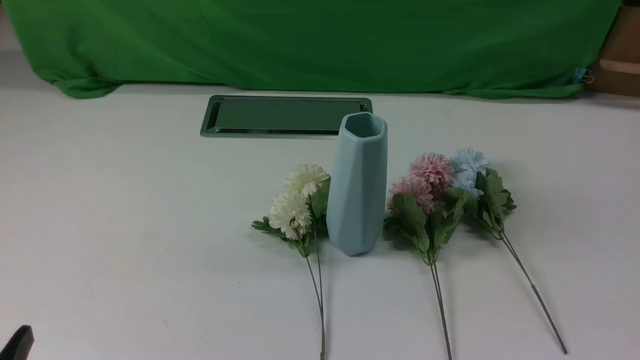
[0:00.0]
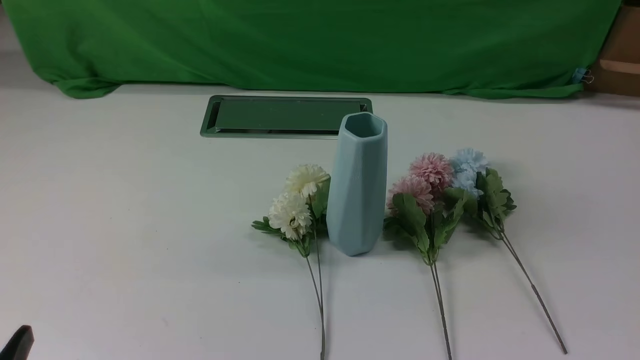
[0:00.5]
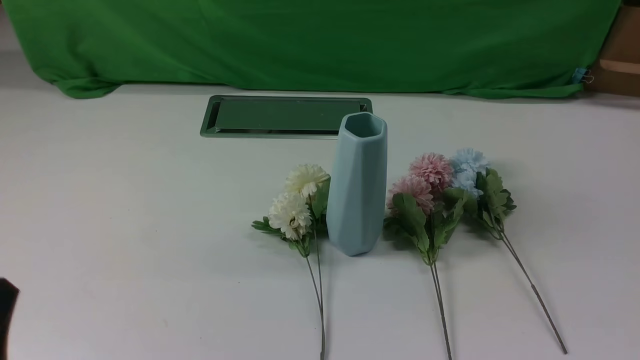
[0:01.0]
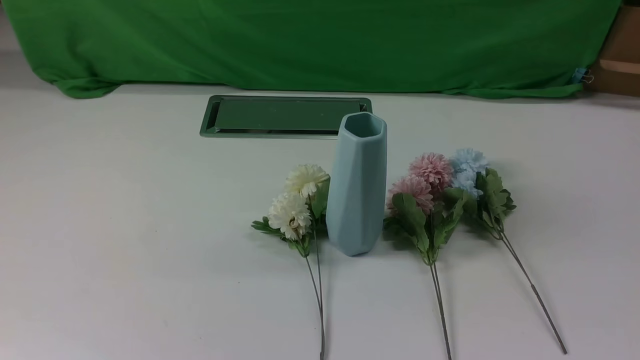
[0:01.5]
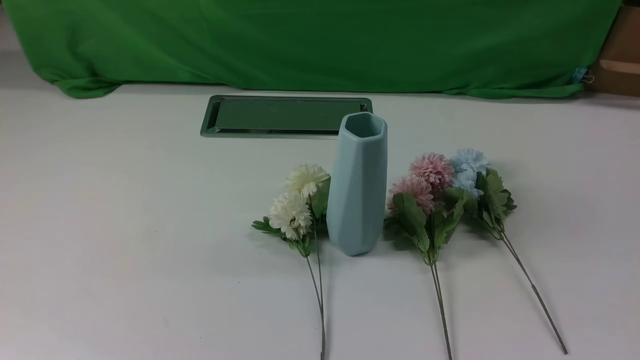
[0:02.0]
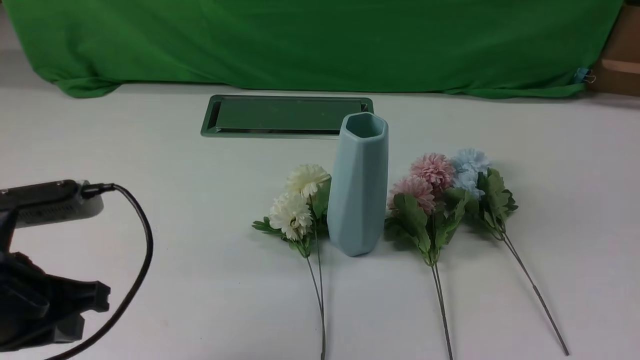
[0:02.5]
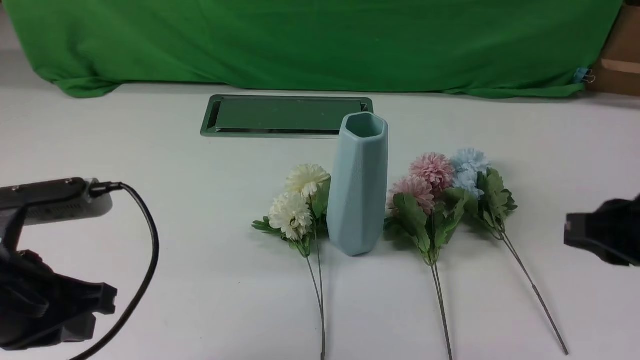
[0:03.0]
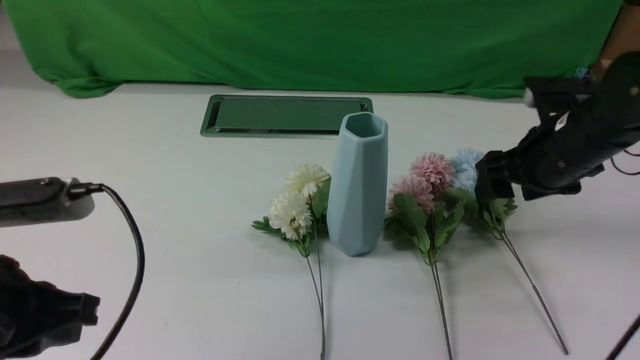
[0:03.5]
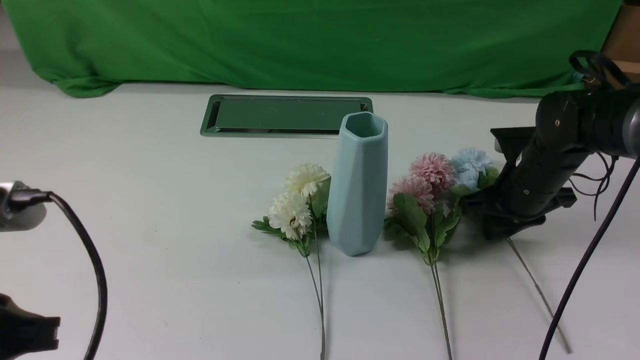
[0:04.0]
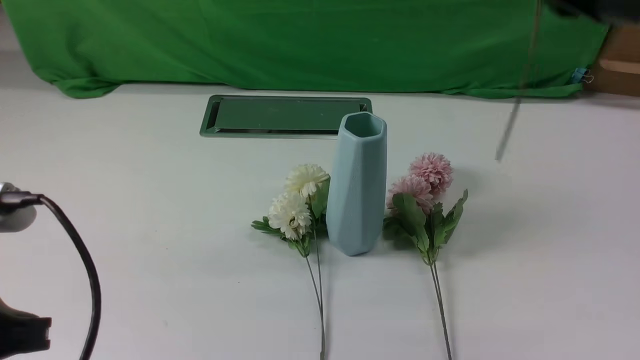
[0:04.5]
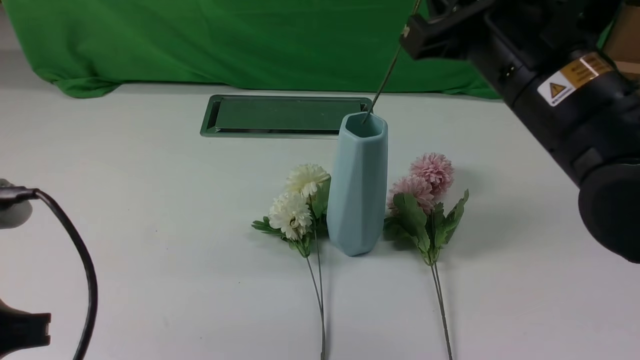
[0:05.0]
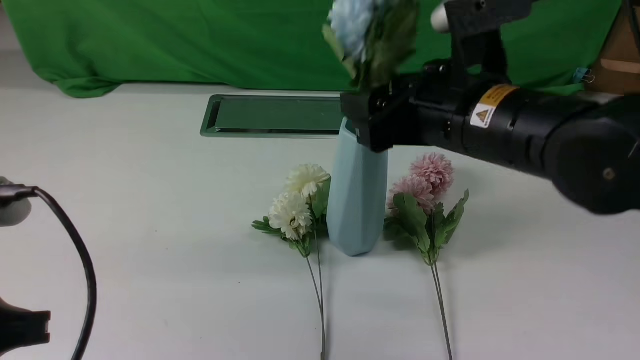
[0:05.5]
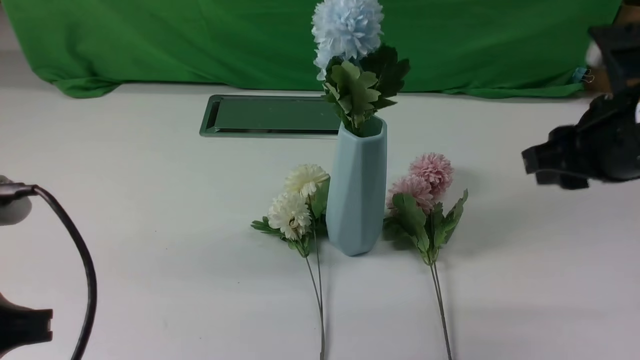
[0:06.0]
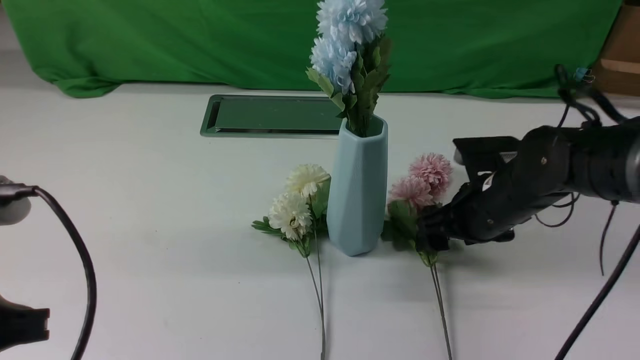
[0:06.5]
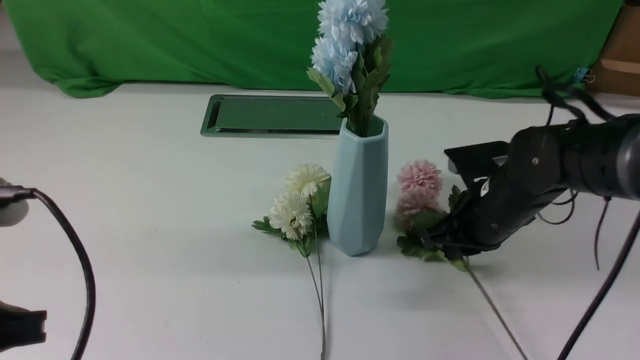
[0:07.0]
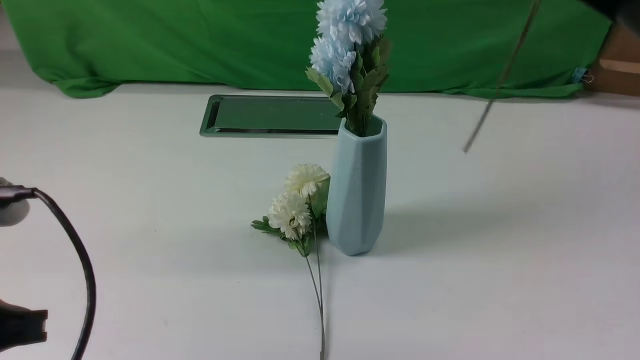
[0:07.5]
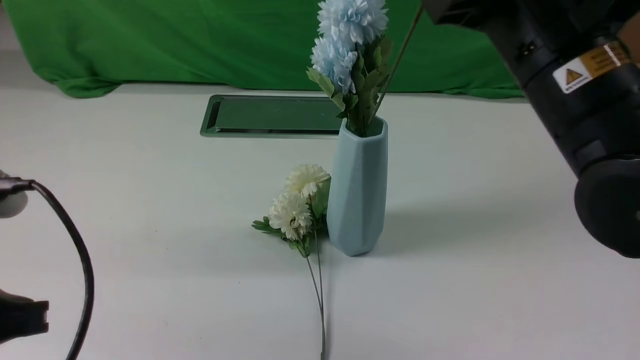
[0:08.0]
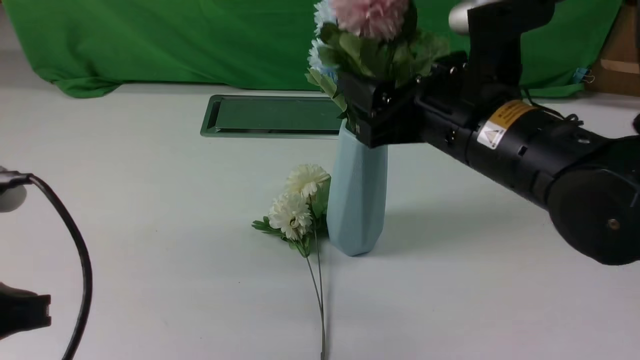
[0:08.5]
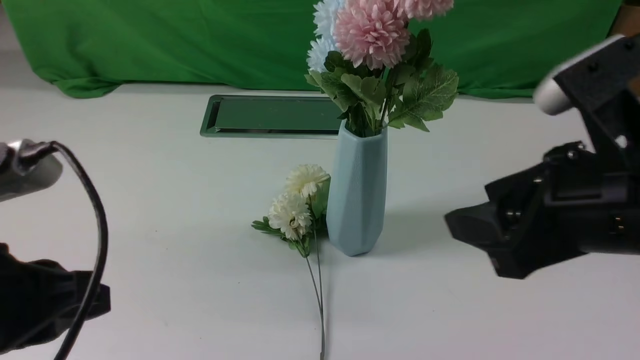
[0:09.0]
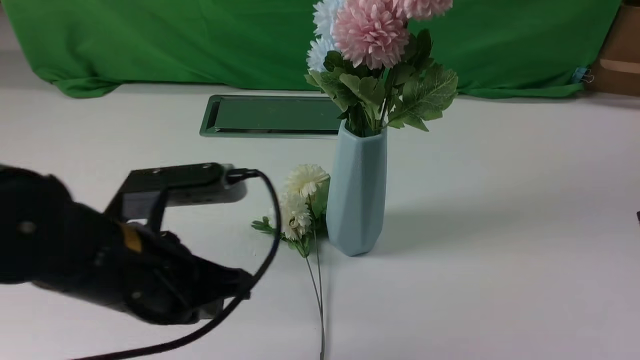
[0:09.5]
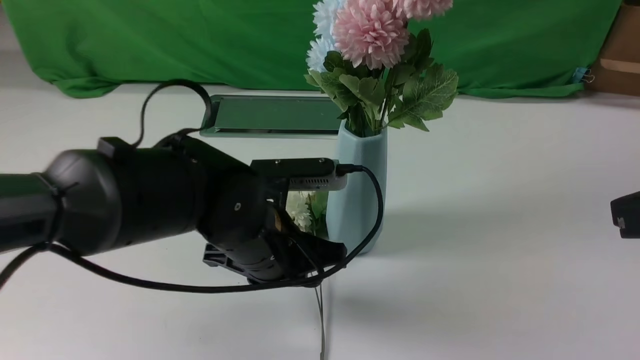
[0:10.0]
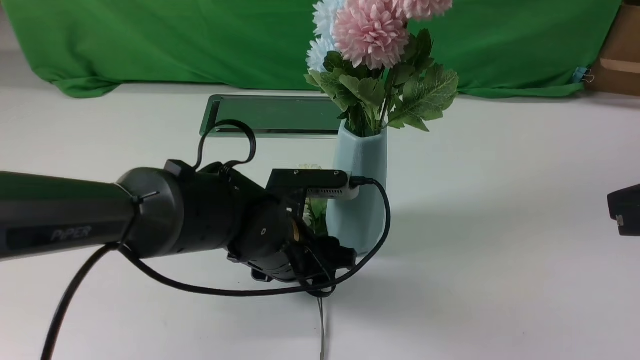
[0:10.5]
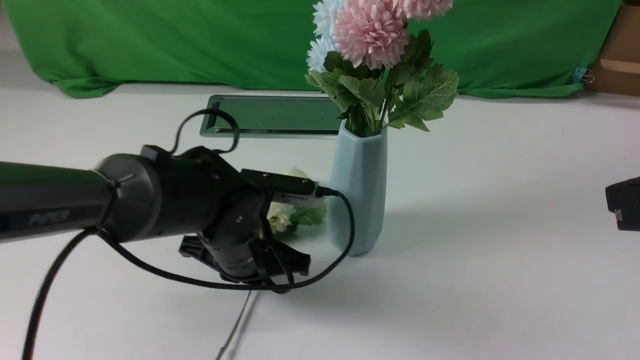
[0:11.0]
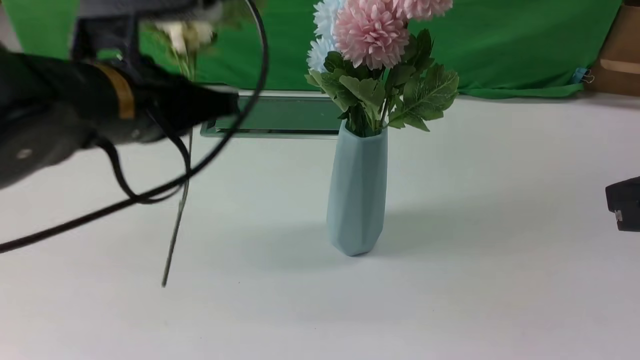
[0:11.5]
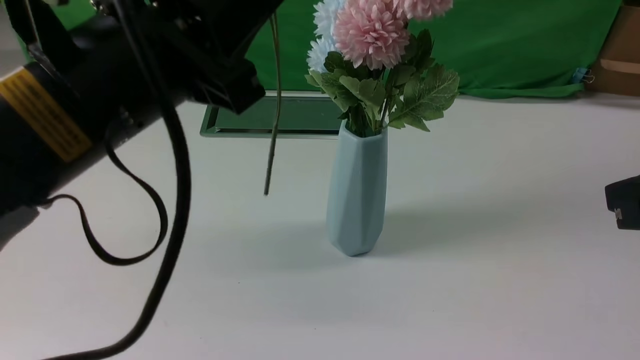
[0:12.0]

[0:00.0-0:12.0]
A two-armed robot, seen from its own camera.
Task of the whole recording: insert the flowers into the vase on the white table.
Step, 0:00.0 to 0:04.0: use the right arm to grab a bunch of fresh flowers.
Step, 0:04.5 to 0:05.5: use the right arm to insert the flowers into the vase.
Step, 0:06.0 to 0:07.0: use the right arm to grab a bunch of fresh flowers.
Step, 0:07.5 to 0:08.5: use the right arm to insert the flowers into the vase.
Step, 0:09.0 to 0:10.5: use the left arm to grab a bunch of fresh flowers.
0:02.0 to 0:04.0: The right gripper heads forward, covering approximately 35 cm, and opens, then closes again; the left gripper moves about 10 cm forward and comes back.
0:04.0 to 0:06.0: The right gripper moves upward and backward, roughly 15 cm, and closes, then opens again.
0:06.0 to 0:08.0: The right gripper travels to the left by approximately 5 cm, moves some 15 cm downward and comes back, and closes its fingers.
0:08.0 to 0:10.0: The left gripper heads to the right, forward and downward, covering some 25 cm, while the right gripper shifts about 15 cm to the right and backward, and opens, then closes once more.
0:10.0 to 0:12.0: The left gripper heads upward and to the left, covering some 20 cm.

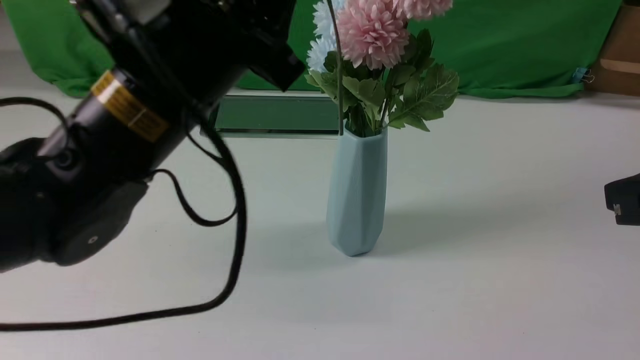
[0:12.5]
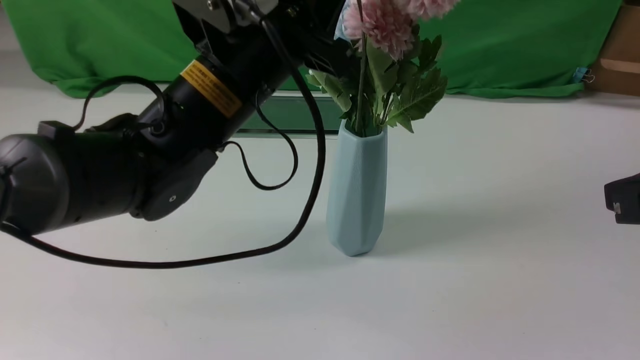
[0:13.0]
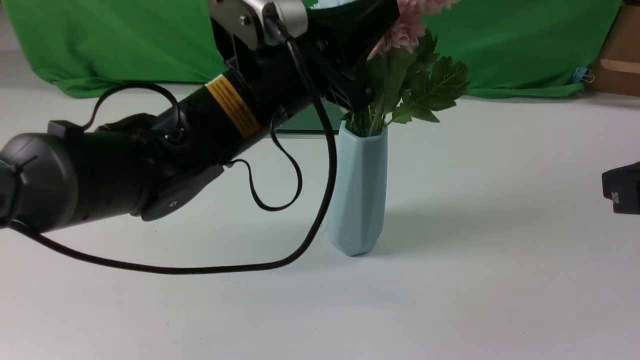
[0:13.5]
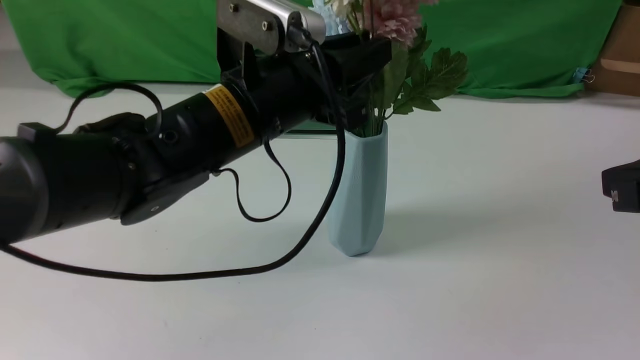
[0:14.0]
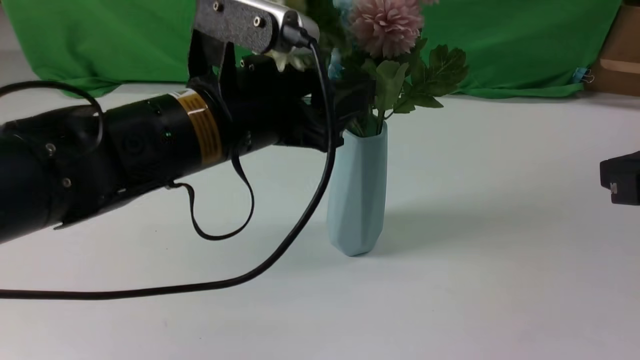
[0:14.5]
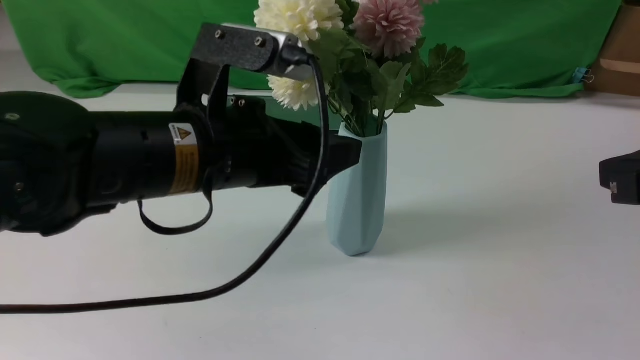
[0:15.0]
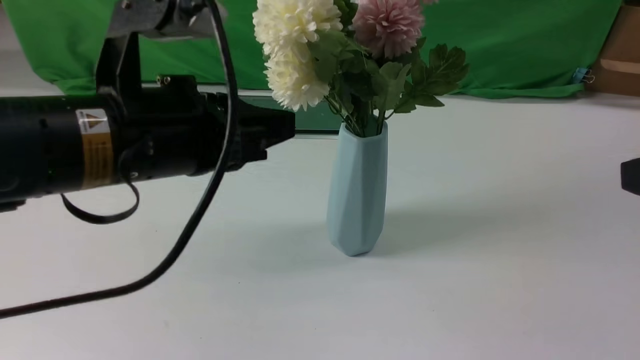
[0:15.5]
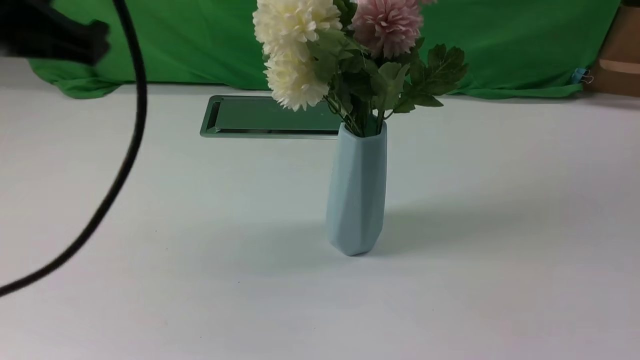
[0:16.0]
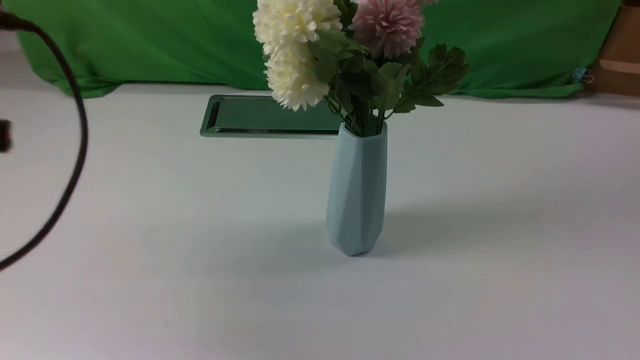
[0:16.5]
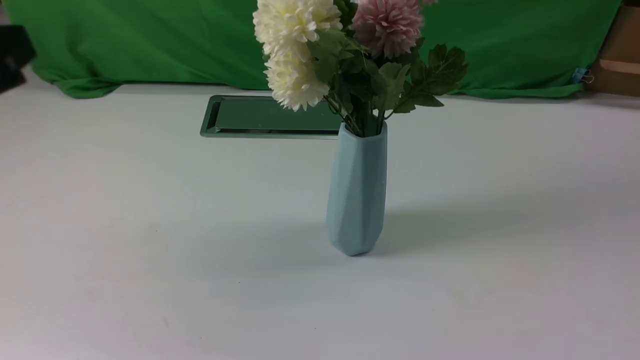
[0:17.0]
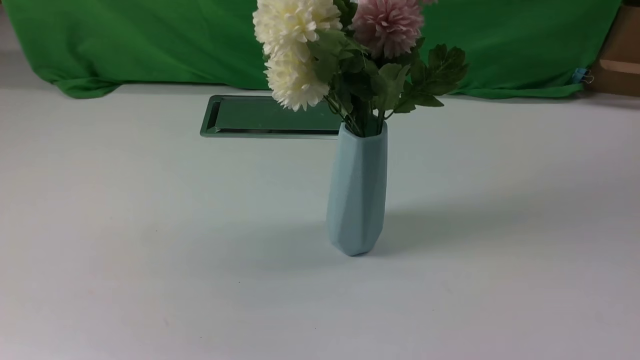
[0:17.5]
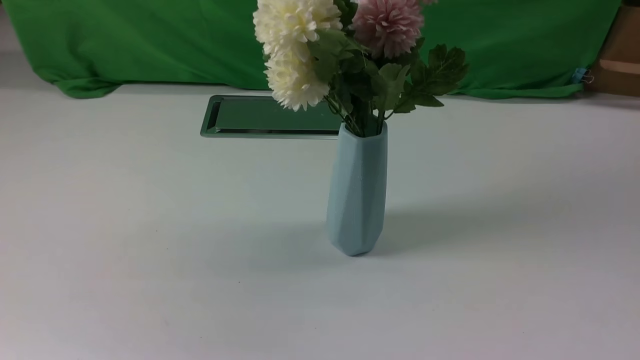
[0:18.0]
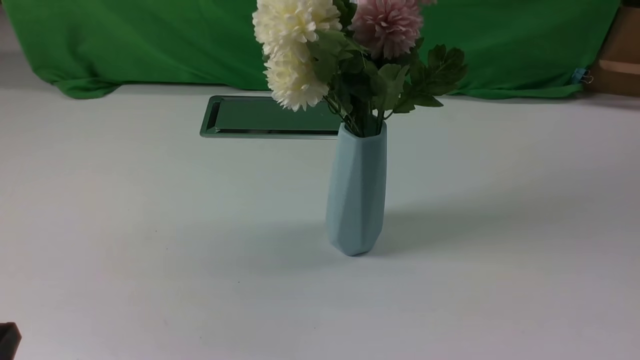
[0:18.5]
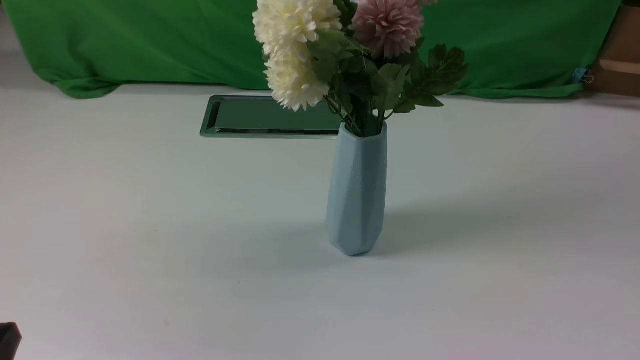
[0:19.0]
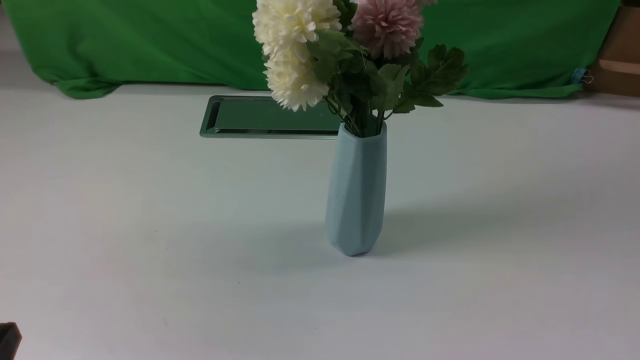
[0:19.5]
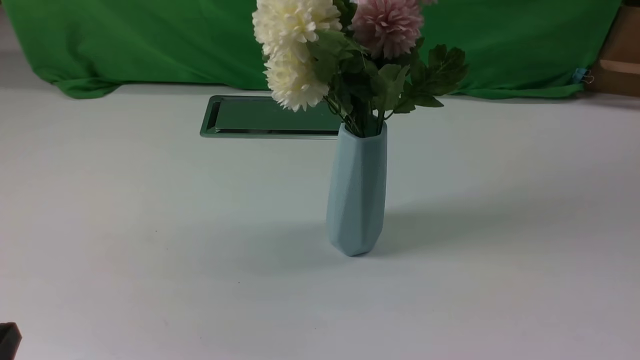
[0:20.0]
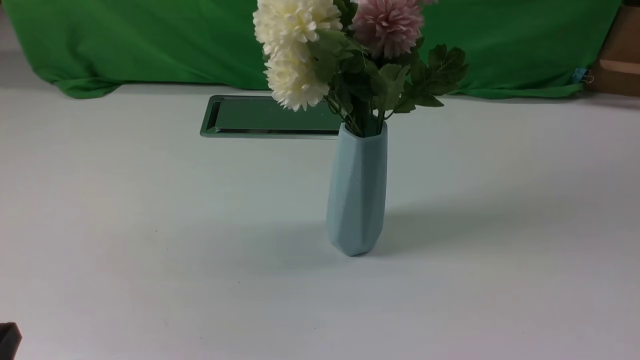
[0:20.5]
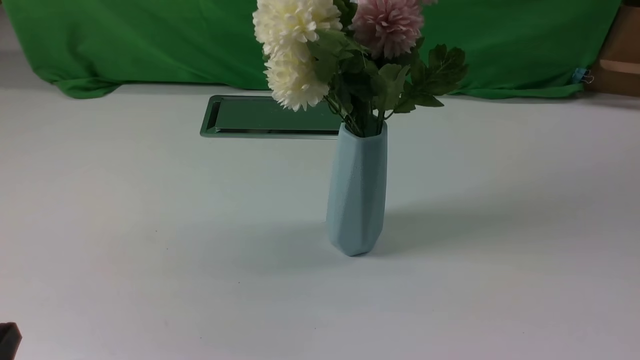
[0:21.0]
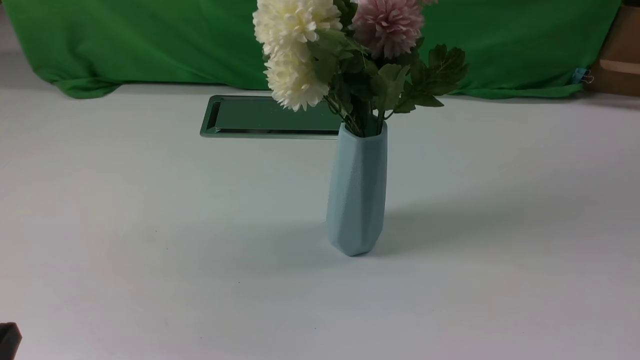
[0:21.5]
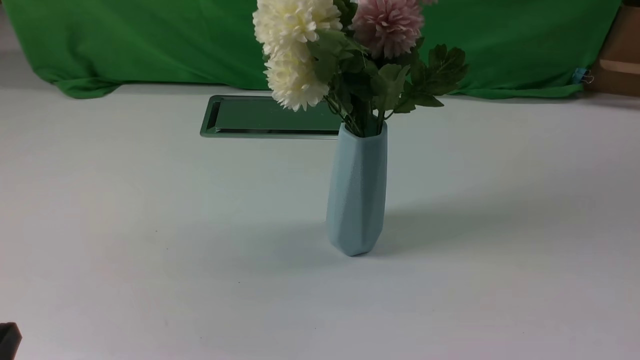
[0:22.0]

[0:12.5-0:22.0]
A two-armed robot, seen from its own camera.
Task of the whole recording: insert the flowers into the vase on the white table.
Step, 0:12.5 to 0:14.5: use the left arm to insert the flowers into the vase.
0:12.5 to 0:14.5: The left gripper shifts by approximately 5 cm, and opens its fingers.
0:14.5 to 0:16.5: The left gripper shifts roughly 20 cm to the left and backward, and closes its fingers, while the right gripper goes about 20 cm backward.
0:16.5 to 0:18.0: The left gripper shifts roughly 15 cm backward and downward.
